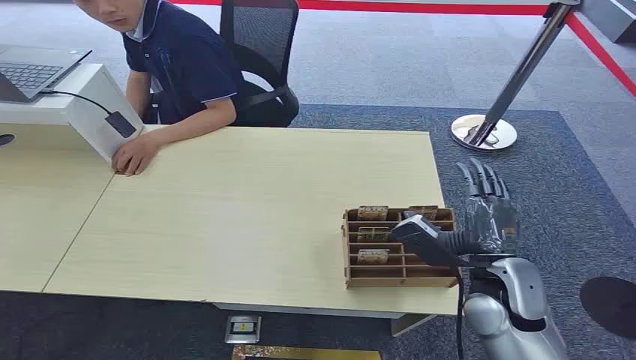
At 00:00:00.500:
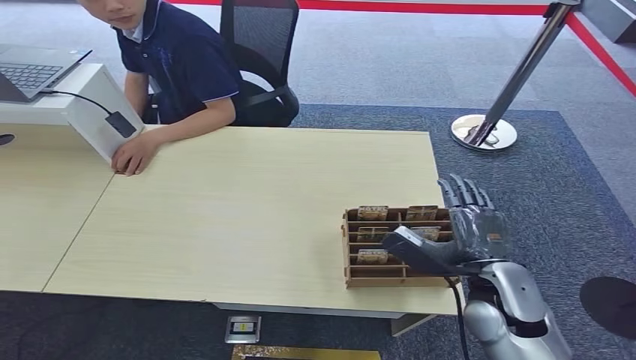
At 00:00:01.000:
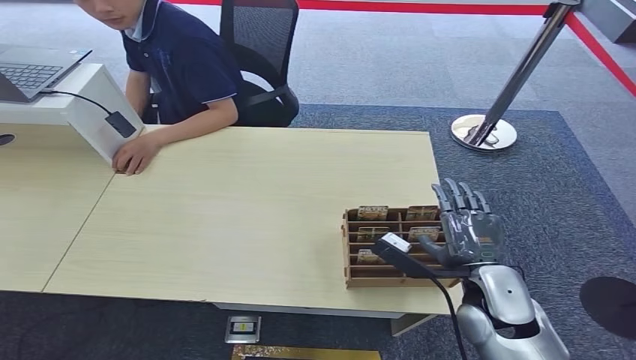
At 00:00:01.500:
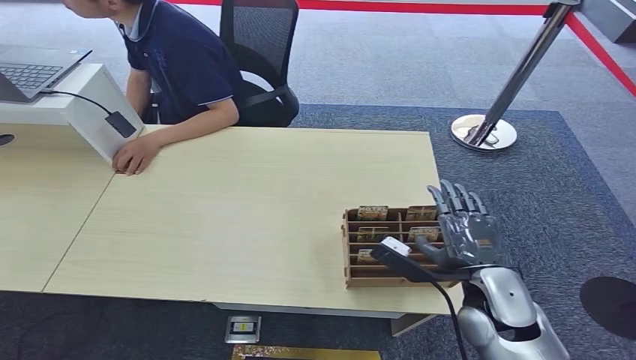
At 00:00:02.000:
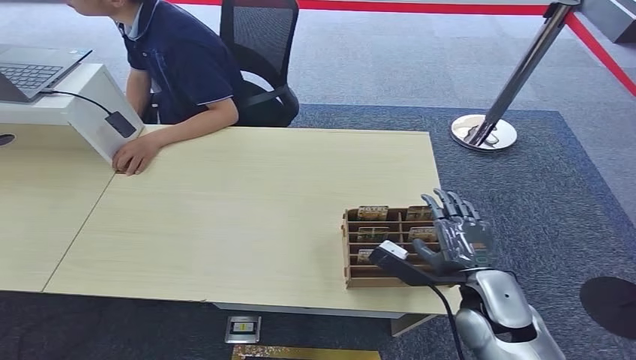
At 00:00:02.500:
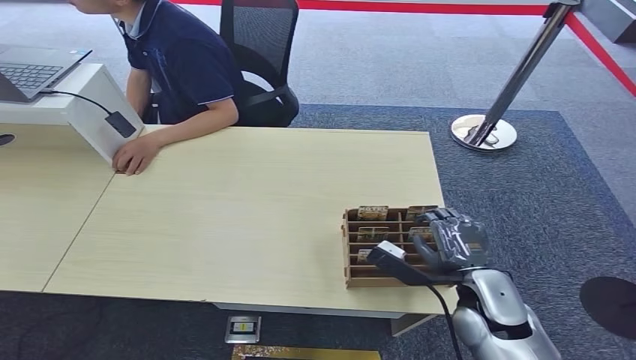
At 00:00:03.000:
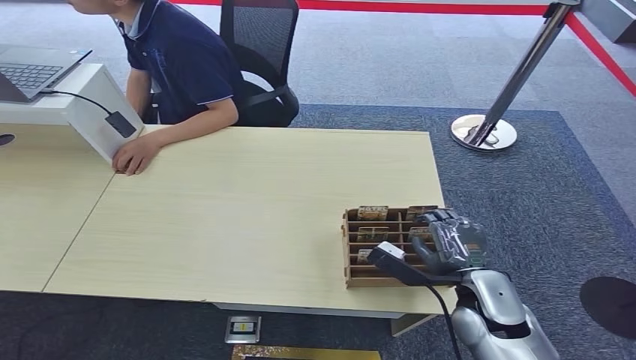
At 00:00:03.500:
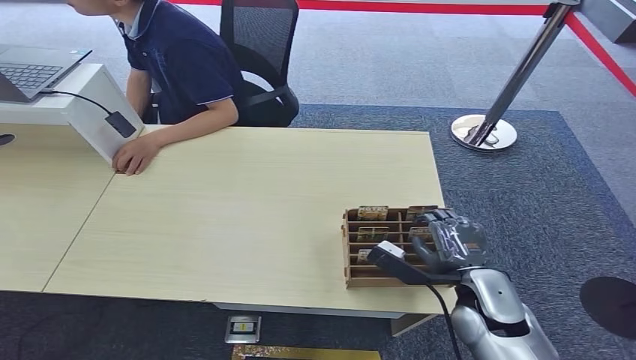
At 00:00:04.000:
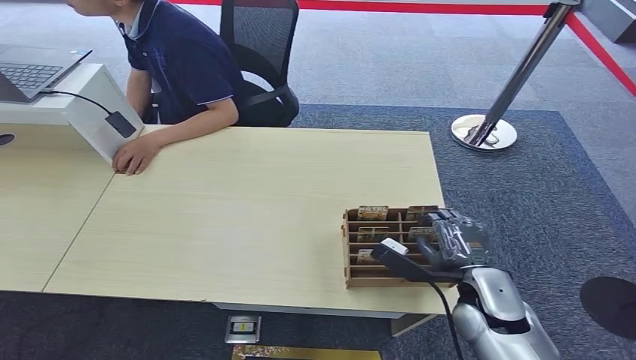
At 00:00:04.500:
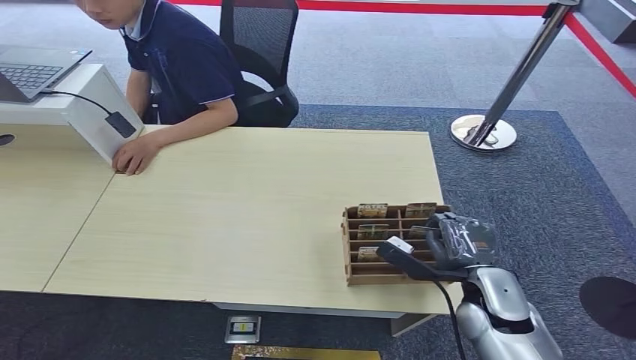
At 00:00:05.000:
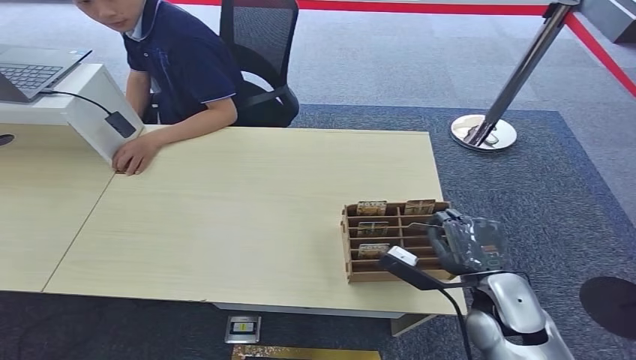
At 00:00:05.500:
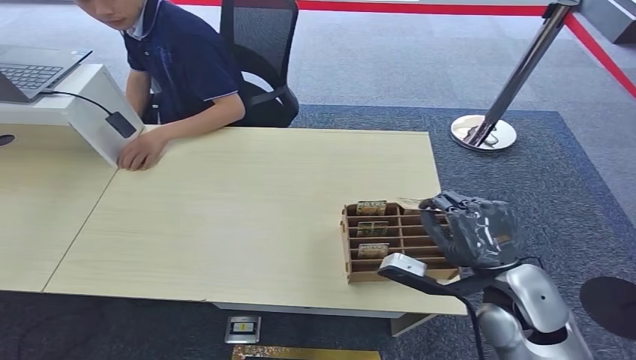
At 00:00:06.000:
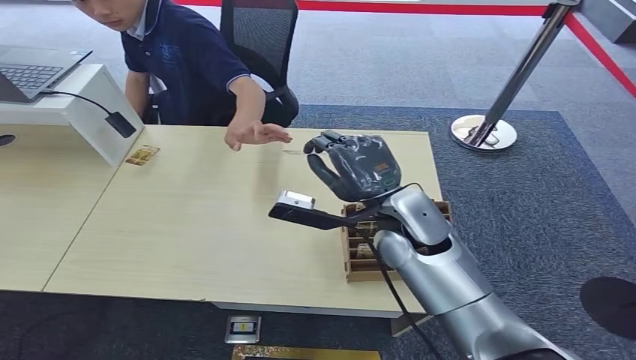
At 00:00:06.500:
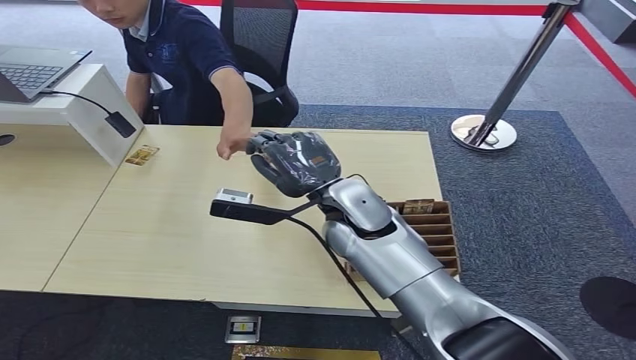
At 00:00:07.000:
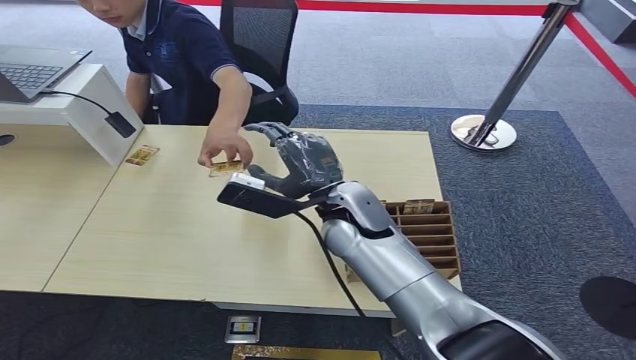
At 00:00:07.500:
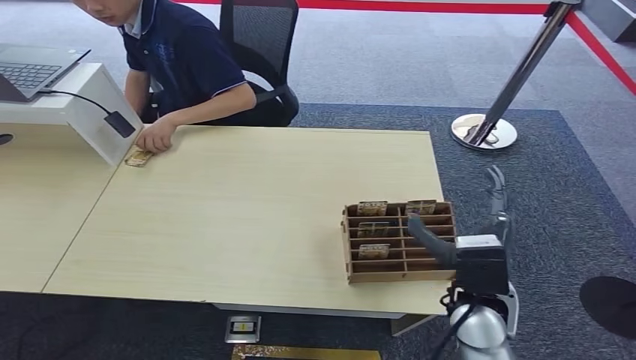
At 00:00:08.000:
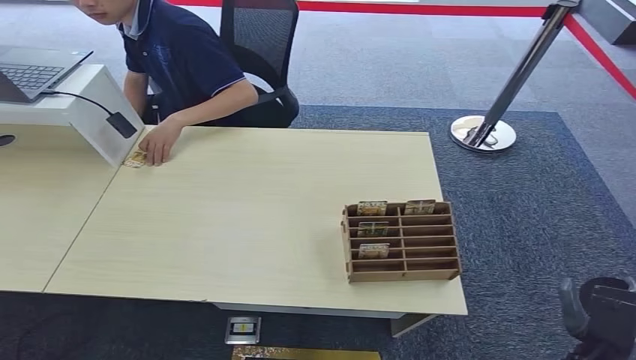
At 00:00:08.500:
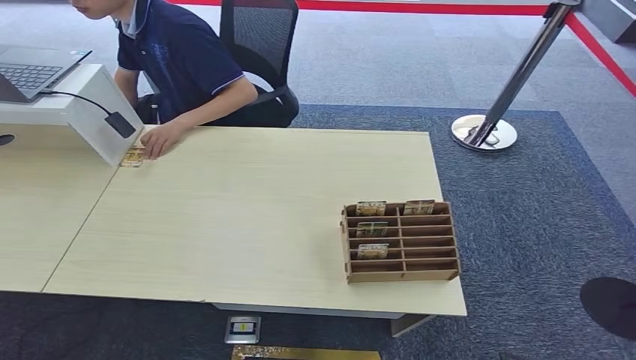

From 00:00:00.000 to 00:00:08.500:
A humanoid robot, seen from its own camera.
Step, from 00:00:00.000 to 00:00:05.500: Pick up the key card from the card box.
Step, from 00:00:06.000 to 00:00:08.500: Hand the key card to the target.
From 00:00:02.000 to 00:00:04.000: The hands move only a little.
From 00:00:04.000 to 00:00:06.500: The right hand moves to the left, upward and forward, about 25 cm.
From 00:00:06.500 to 00:00:08.500: The right hand heads downward, backward and to the right, covering roughly 50 cm.

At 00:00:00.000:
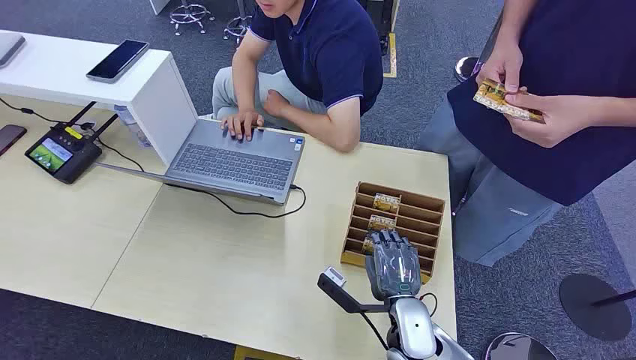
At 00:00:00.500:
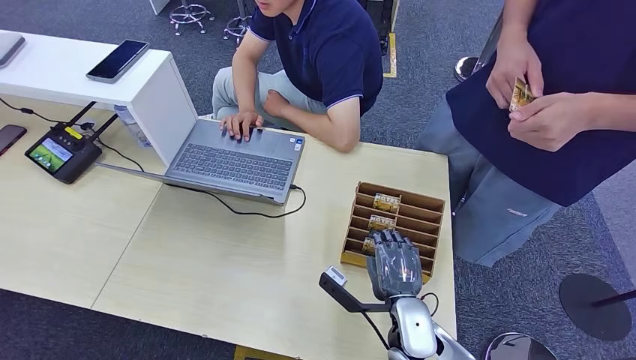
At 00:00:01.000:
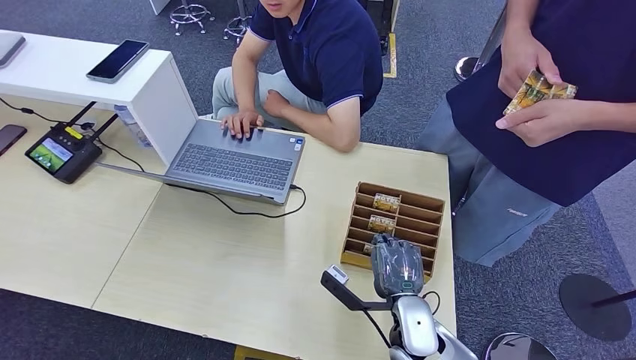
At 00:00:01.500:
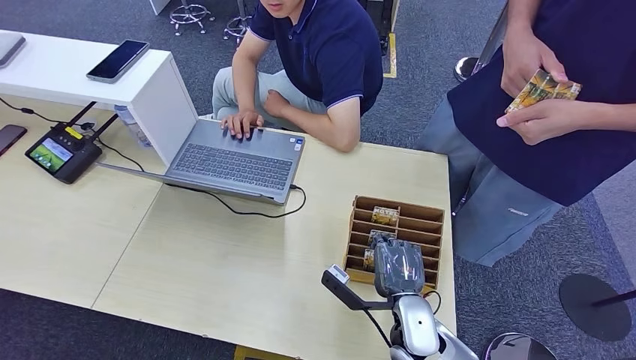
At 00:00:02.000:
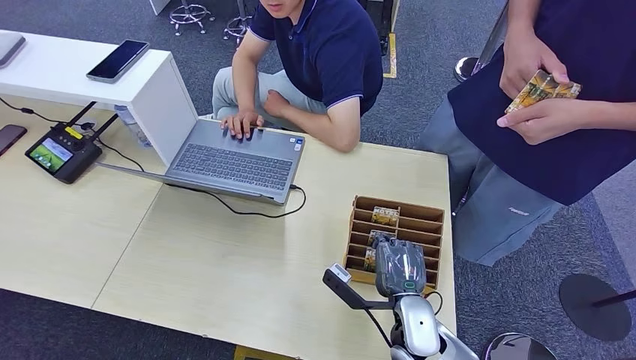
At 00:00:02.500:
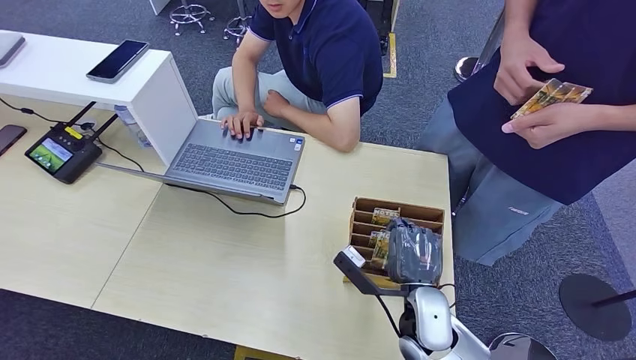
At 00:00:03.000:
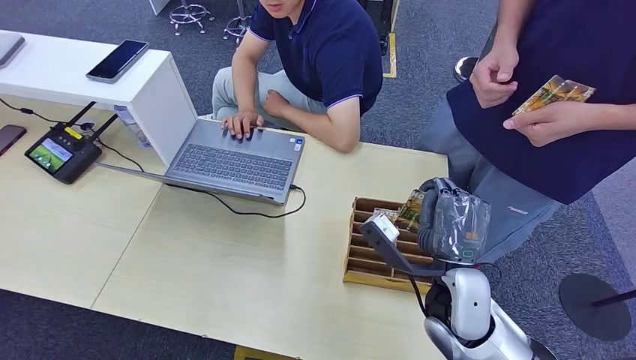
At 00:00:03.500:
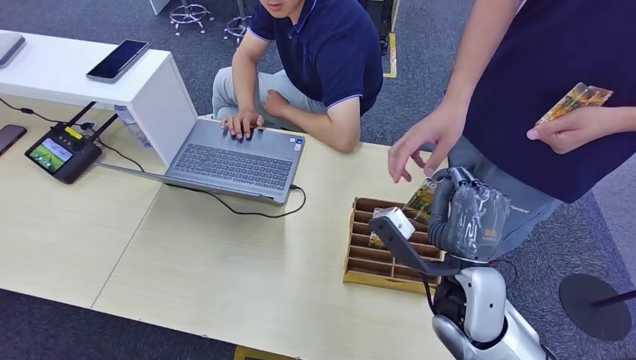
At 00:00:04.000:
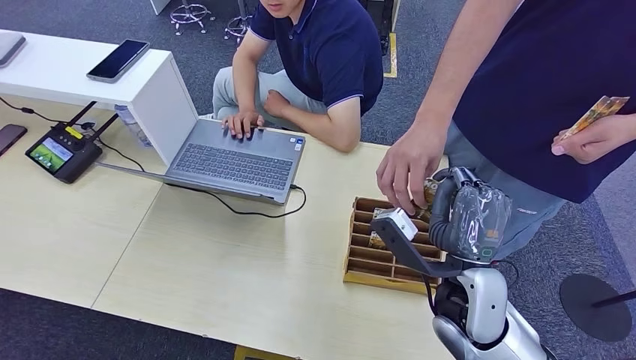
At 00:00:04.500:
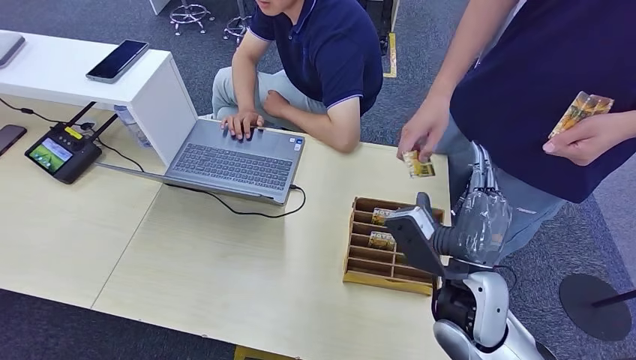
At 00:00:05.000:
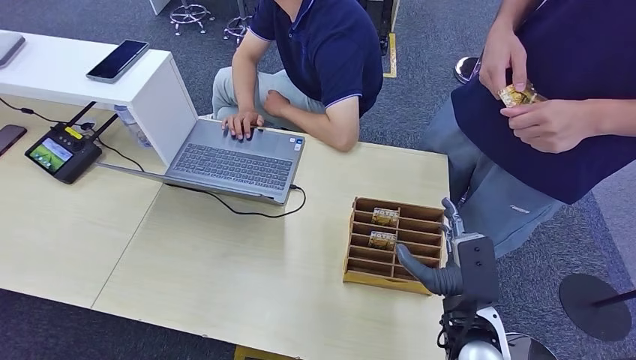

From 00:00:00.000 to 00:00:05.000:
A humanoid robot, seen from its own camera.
Step, from 00:00:00.000 to 00:00:02.500: Pick up the key card from the card box.
Step, from 00:00:03.000 to 00:00:05.000: Hand the key card to the target.
From 00:00:02.500 to 00:00:05.000: The right hand travels to the right by roughly 5 cm.
